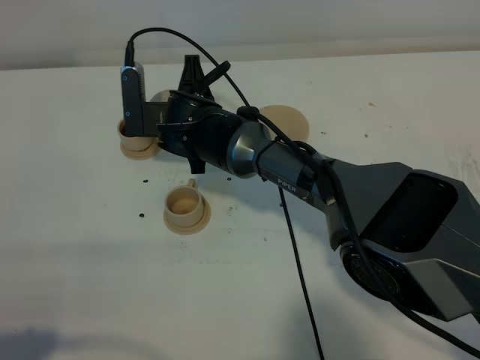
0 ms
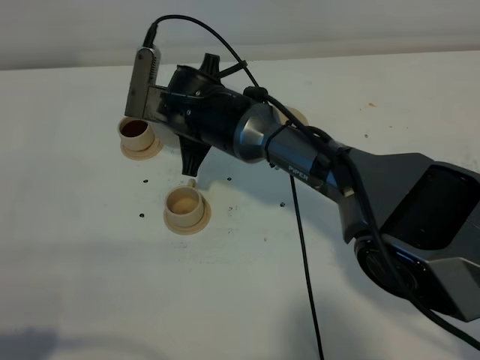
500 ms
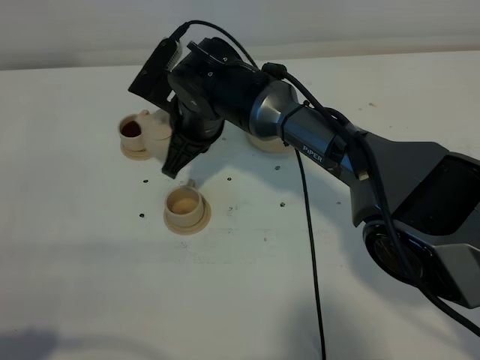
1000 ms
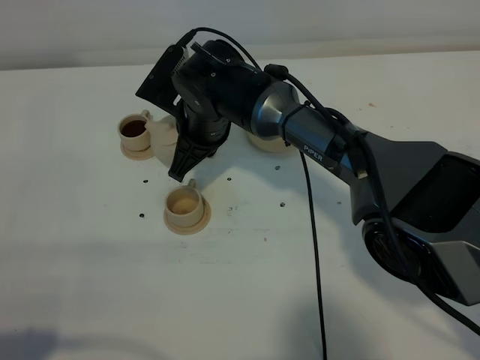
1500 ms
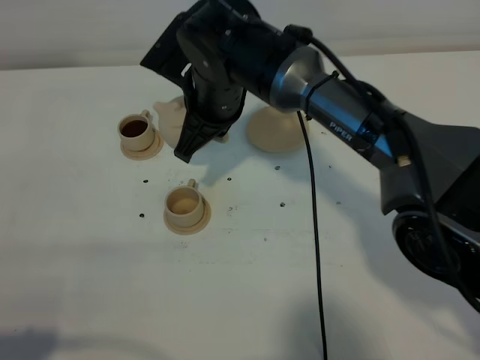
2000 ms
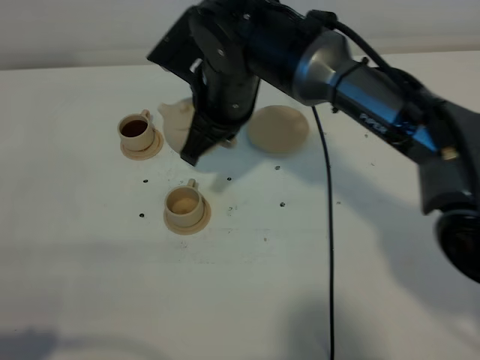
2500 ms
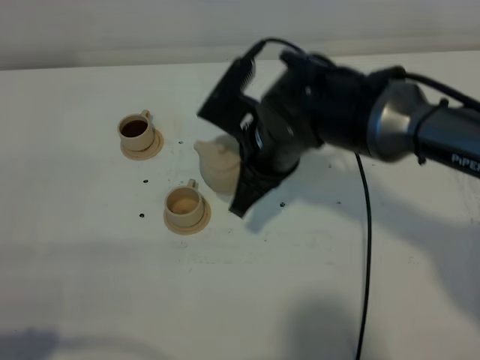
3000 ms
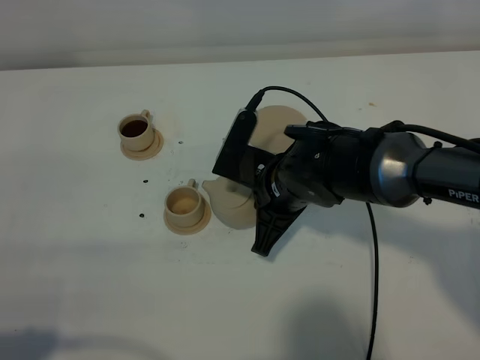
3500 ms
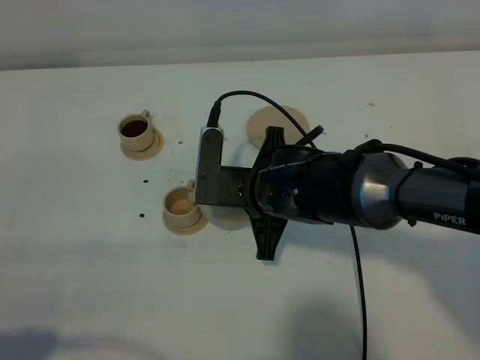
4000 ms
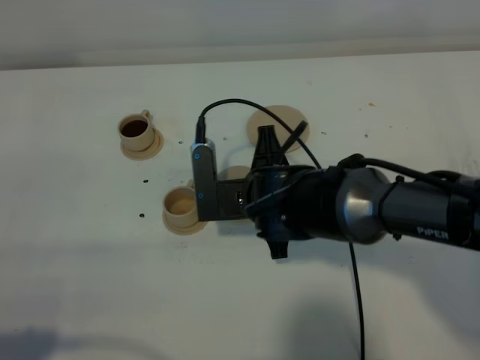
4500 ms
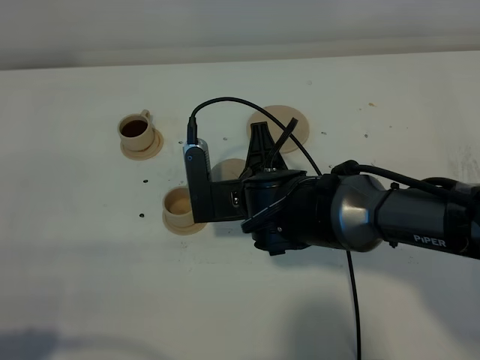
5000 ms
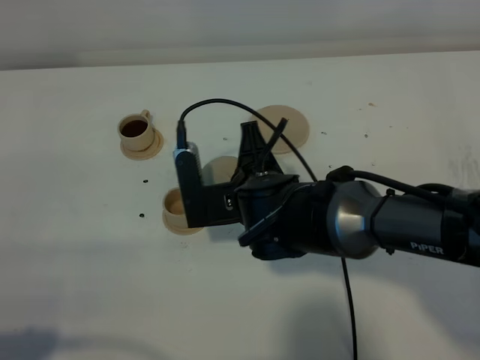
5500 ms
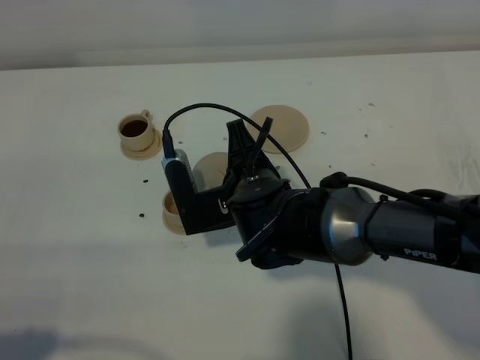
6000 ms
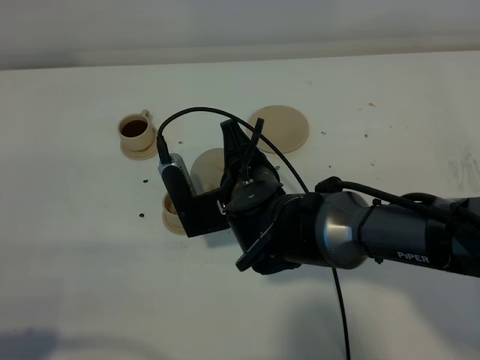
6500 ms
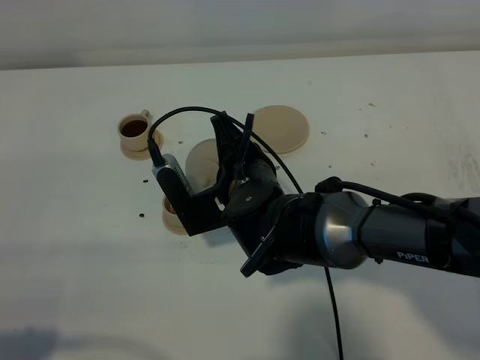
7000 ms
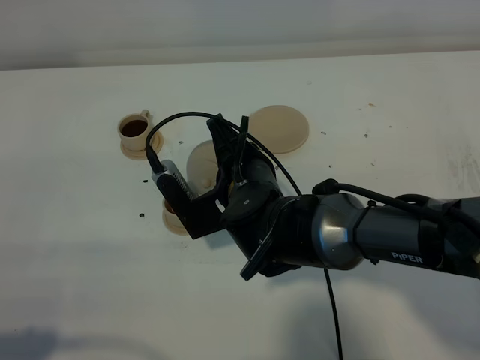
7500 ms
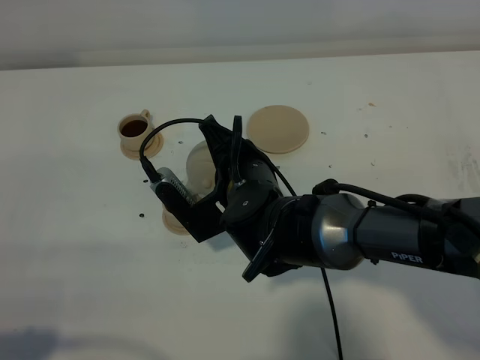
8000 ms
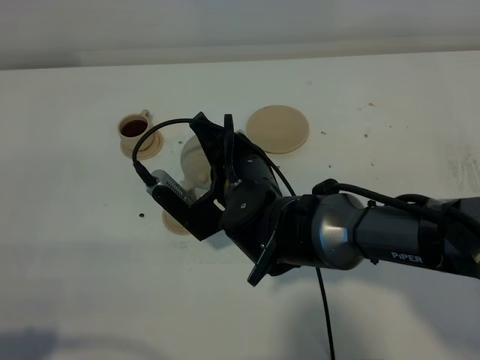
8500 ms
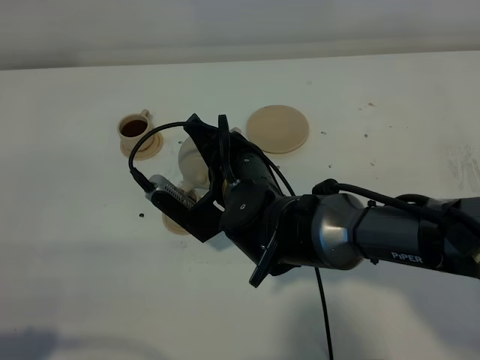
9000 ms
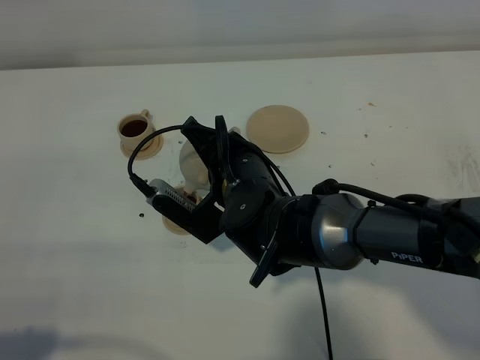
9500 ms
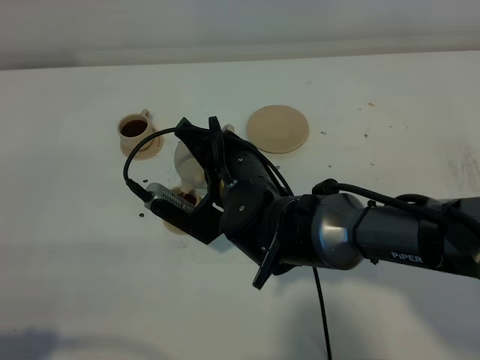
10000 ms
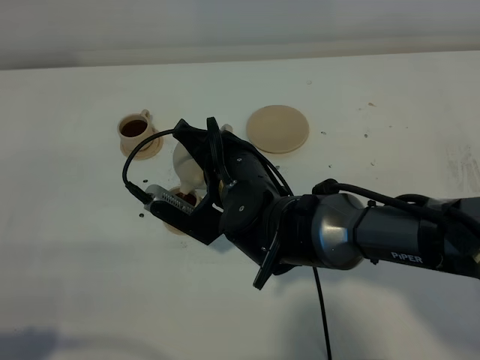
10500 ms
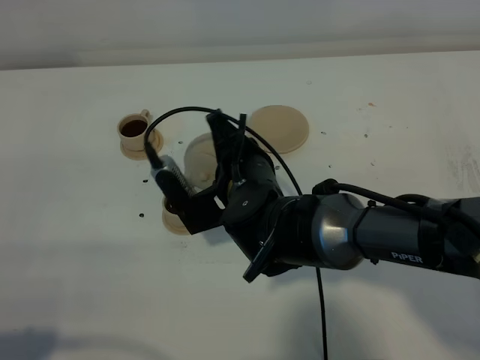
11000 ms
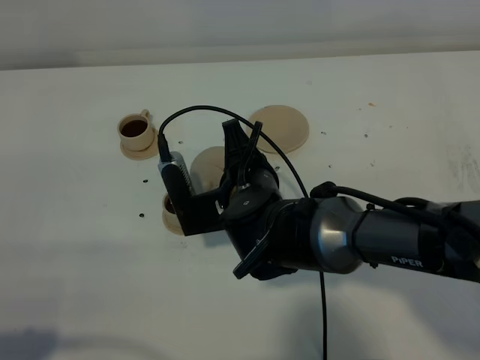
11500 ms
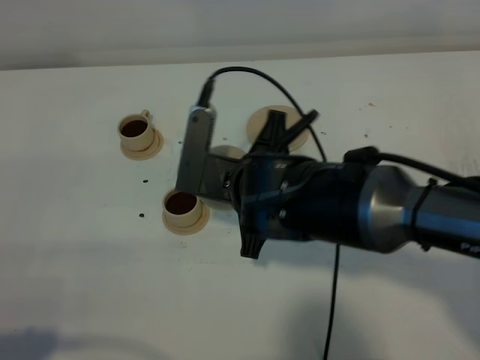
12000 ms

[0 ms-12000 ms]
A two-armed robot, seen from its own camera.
Task of the whole recording: grasp the brown teapot and pour the tea into the two brown teacups one by one, put the brown teapot back in its original place.
Step, 0 ms to 11500 ms: Pour tea into the teacup with the right gripper.
0 ms to 2000 ms: The right gripper heads upward, covering roughly 10 cm.
2000 ms to 4000 ms: The right gripper goes some 15 cm backward, downward and to the right.
8000 ms to 10000 ms: The grippers move only a little.
10000 ms to 12000 ms: The right gripper changes place by some 5 cm.

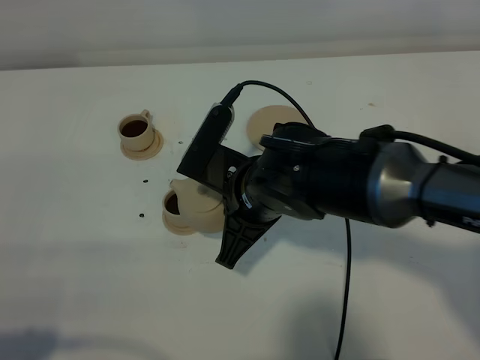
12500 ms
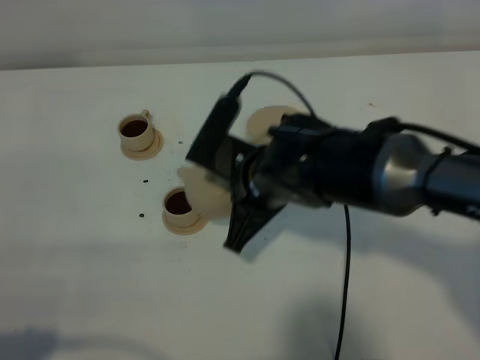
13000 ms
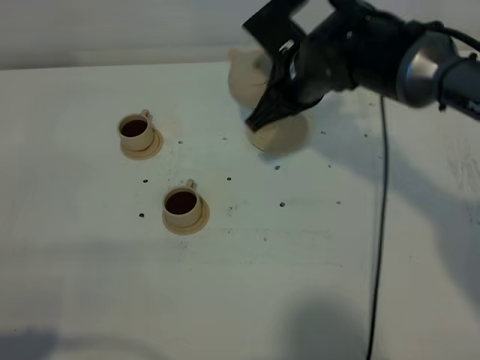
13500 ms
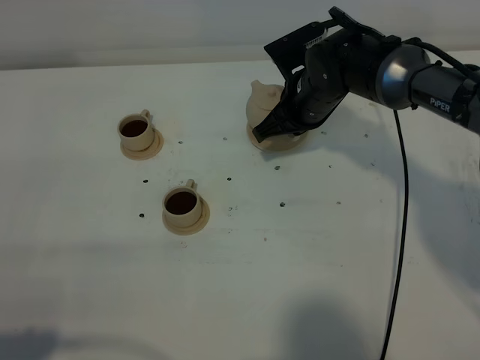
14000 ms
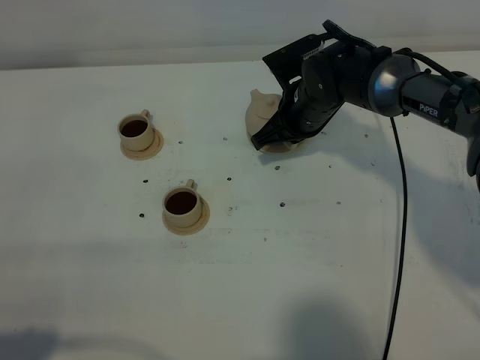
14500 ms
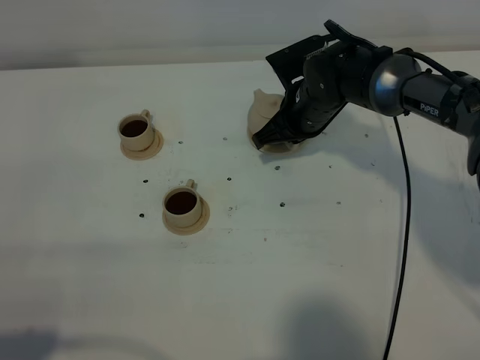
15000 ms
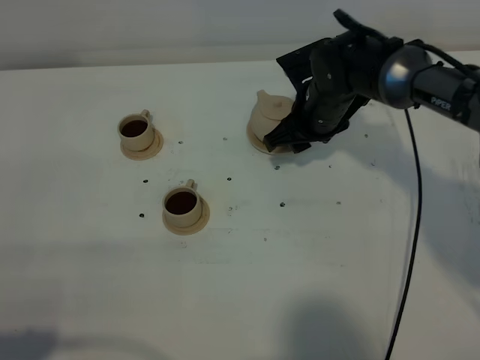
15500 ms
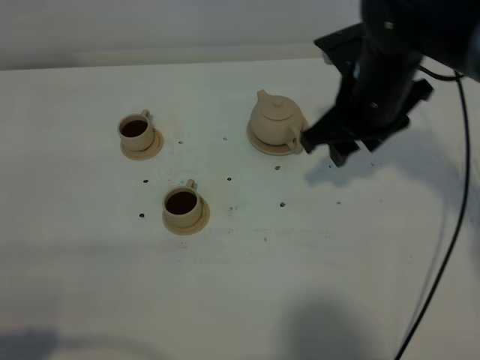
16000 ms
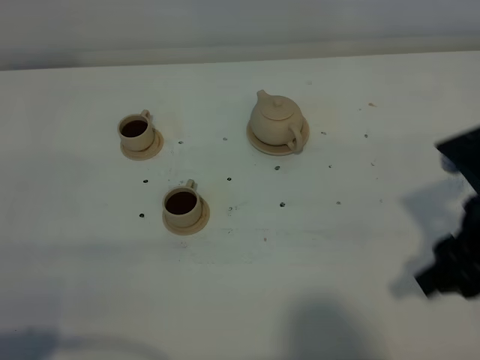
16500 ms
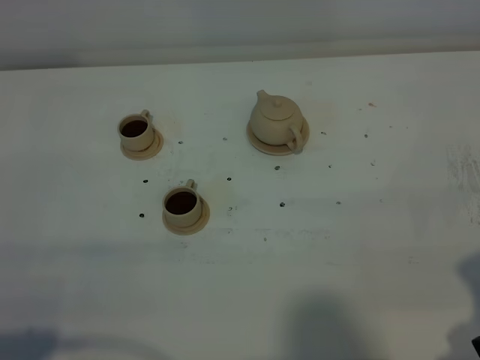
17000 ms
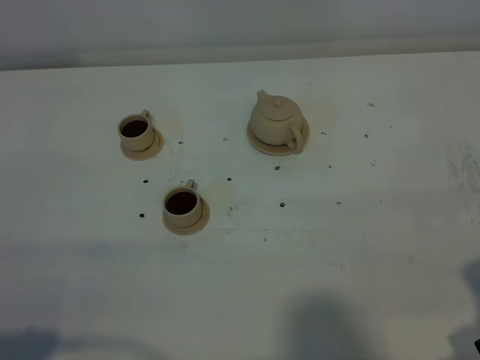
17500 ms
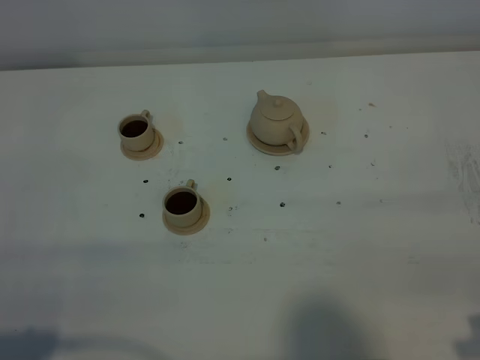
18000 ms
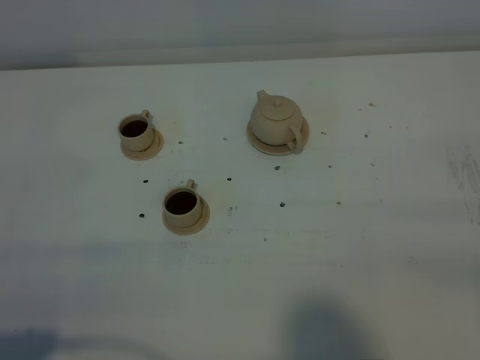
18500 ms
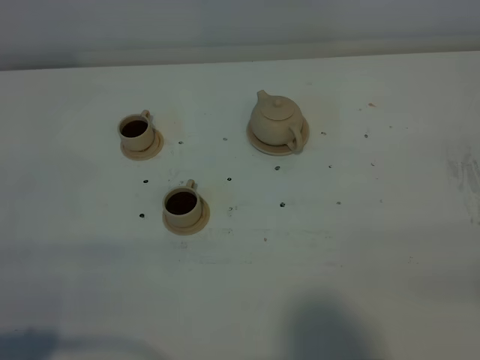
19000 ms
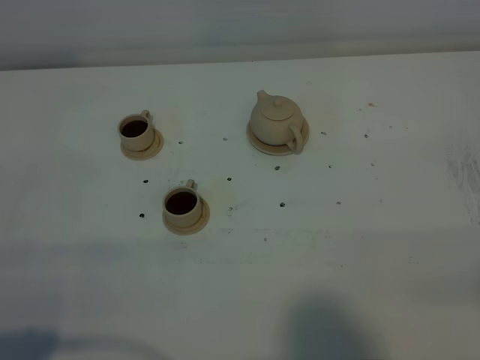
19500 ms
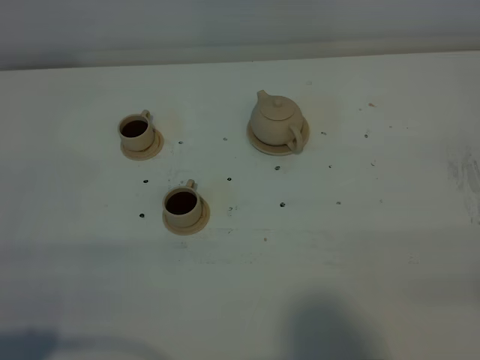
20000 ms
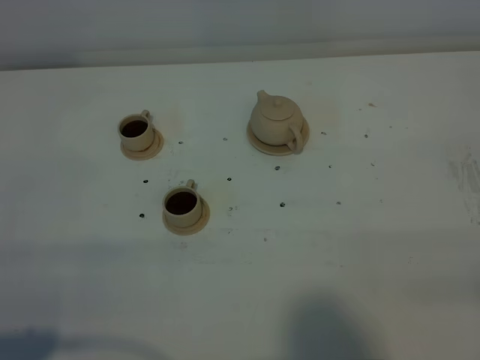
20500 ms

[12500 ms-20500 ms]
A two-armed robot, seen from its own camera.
Task of the whole recording: grasp the brown teapot and pour the tea into the two brown teacups one by one, put the brown teapot back in its original place.
12500 ms to 14500 ms: The right gripper goes approximately 20 cm forward and to the right.
14500 ms to 16500 ms: The right gripper heads backward, to the right and upward, covering roughly 30 cm, and opens its fingers.
16500 ms to 18500 ms: The right gripper goes some 15 cm backward and to the right.
